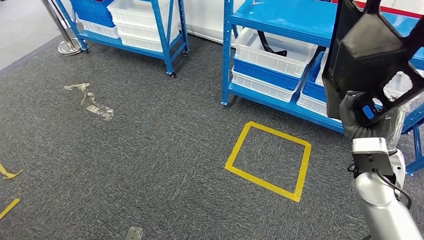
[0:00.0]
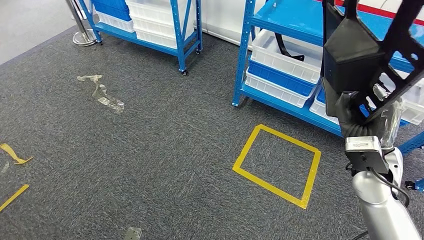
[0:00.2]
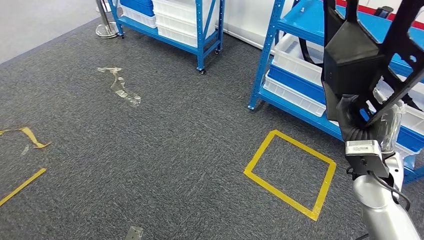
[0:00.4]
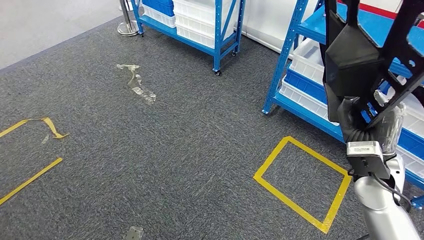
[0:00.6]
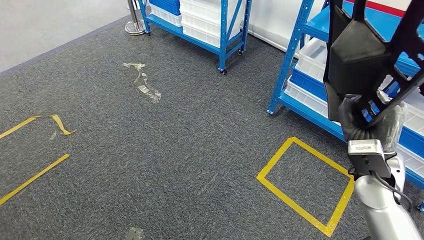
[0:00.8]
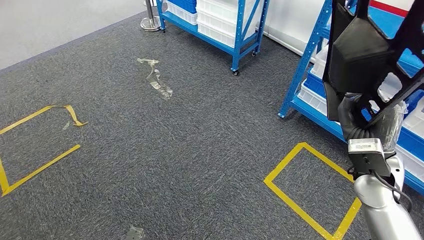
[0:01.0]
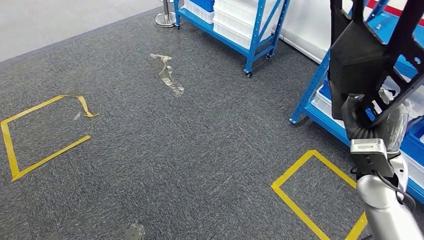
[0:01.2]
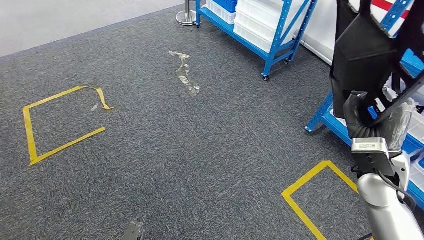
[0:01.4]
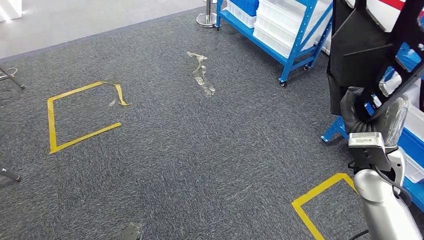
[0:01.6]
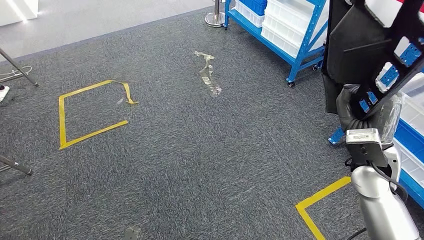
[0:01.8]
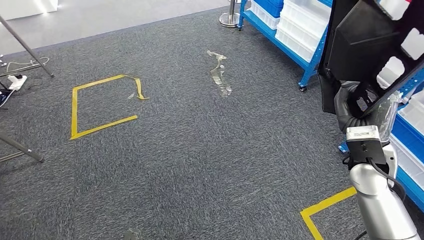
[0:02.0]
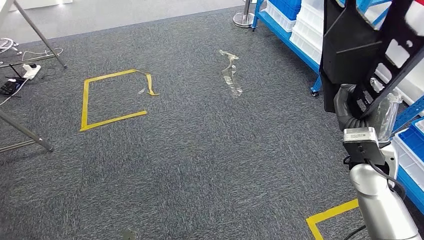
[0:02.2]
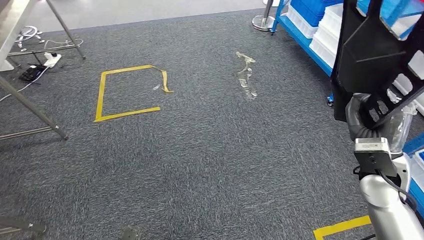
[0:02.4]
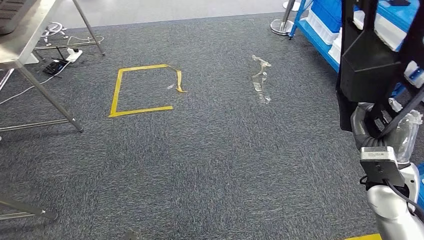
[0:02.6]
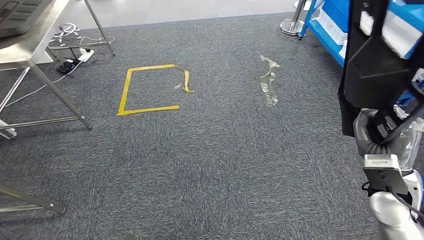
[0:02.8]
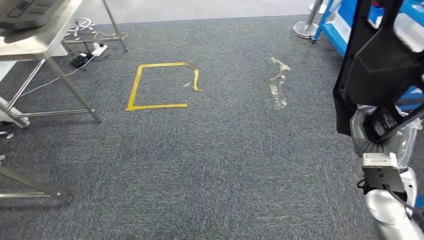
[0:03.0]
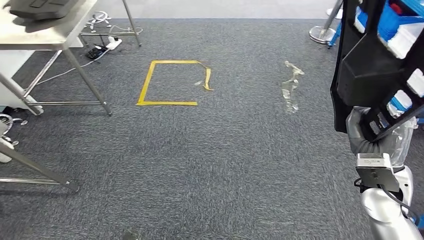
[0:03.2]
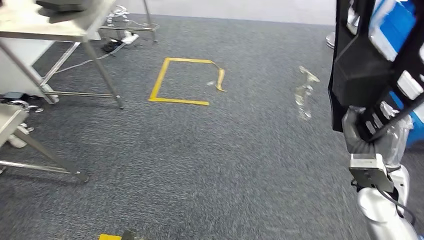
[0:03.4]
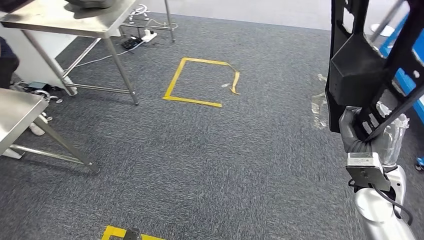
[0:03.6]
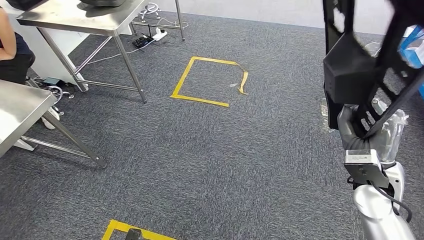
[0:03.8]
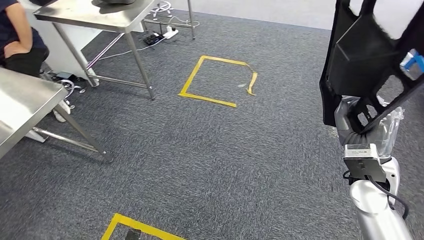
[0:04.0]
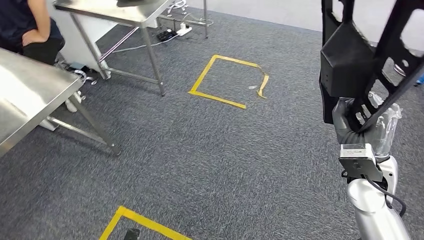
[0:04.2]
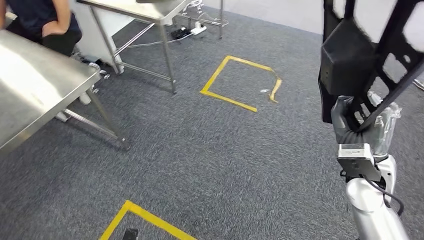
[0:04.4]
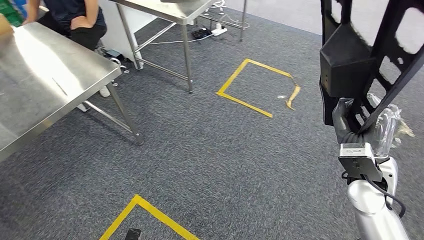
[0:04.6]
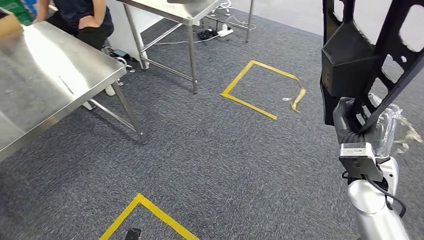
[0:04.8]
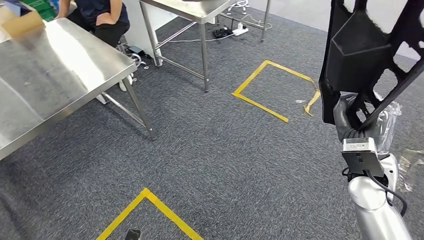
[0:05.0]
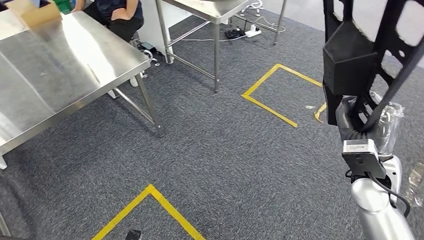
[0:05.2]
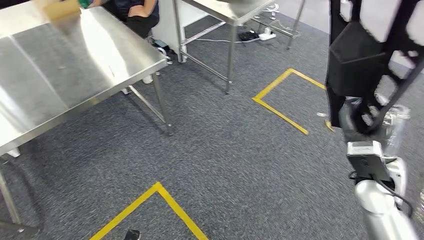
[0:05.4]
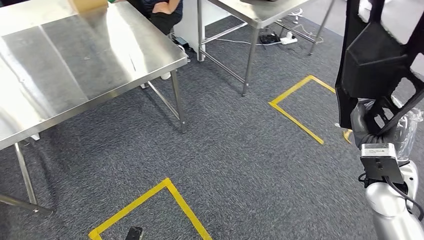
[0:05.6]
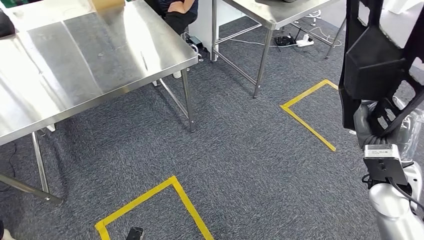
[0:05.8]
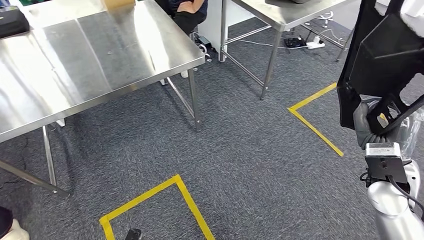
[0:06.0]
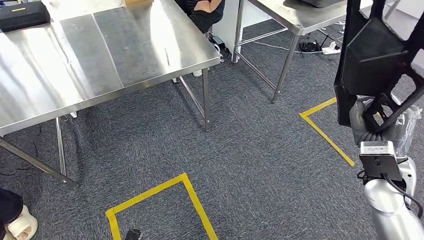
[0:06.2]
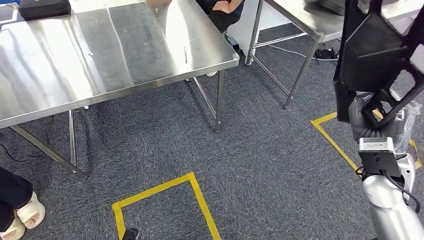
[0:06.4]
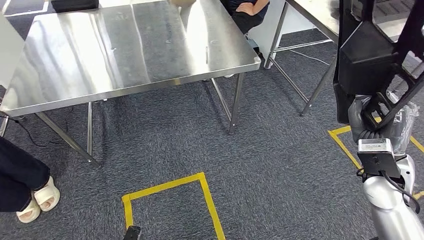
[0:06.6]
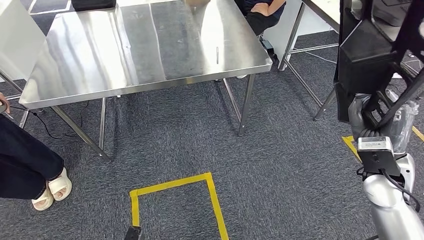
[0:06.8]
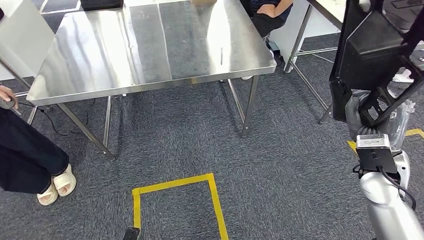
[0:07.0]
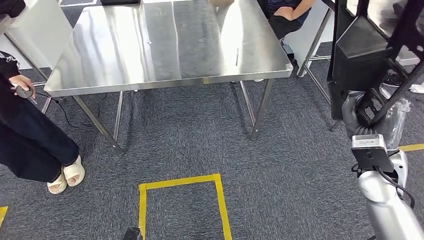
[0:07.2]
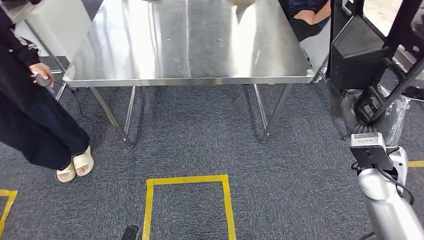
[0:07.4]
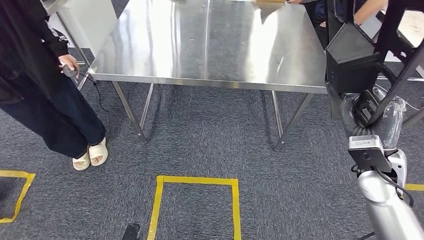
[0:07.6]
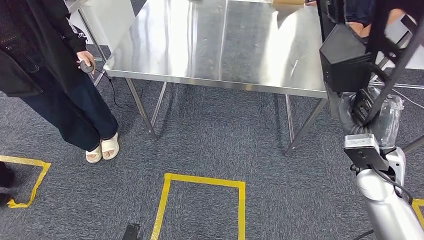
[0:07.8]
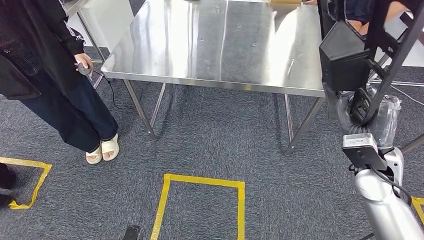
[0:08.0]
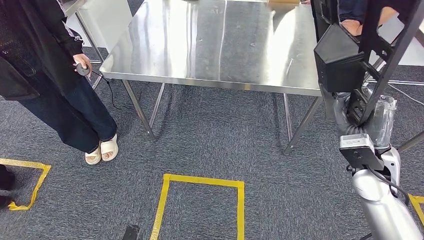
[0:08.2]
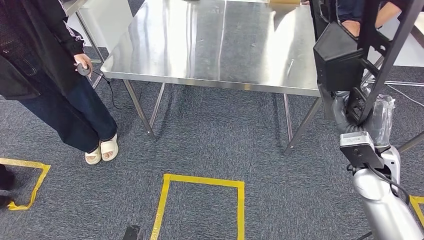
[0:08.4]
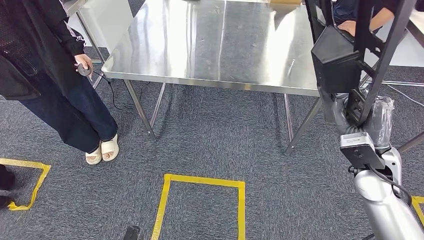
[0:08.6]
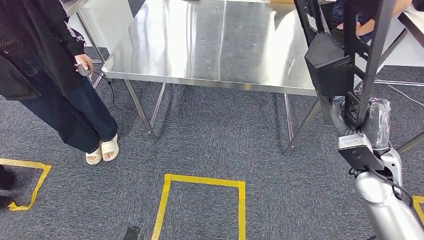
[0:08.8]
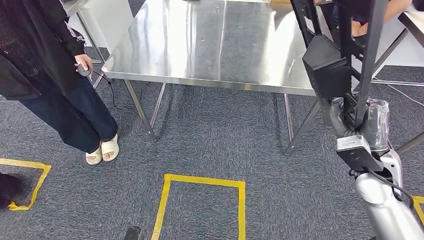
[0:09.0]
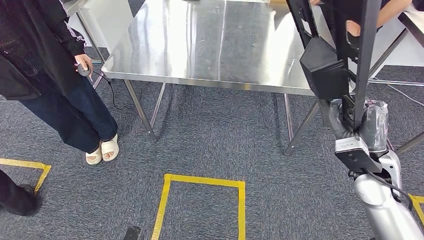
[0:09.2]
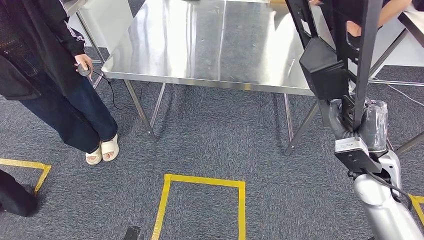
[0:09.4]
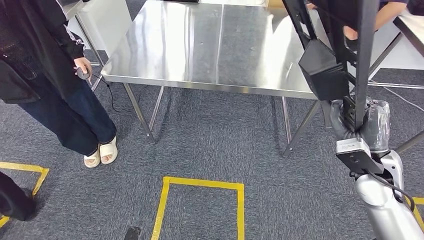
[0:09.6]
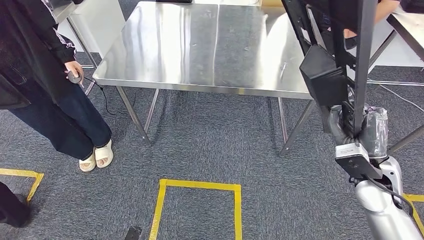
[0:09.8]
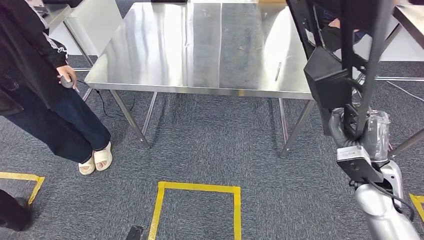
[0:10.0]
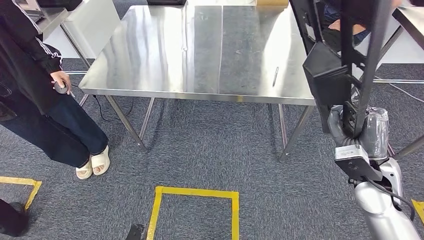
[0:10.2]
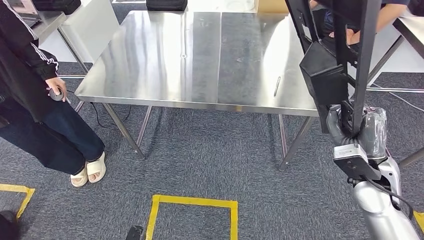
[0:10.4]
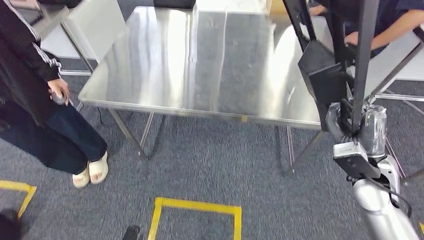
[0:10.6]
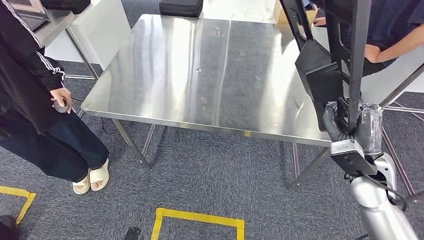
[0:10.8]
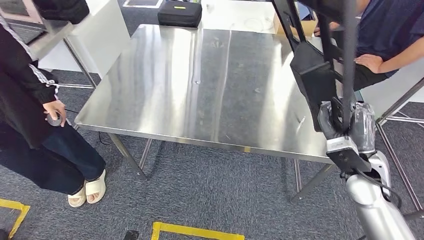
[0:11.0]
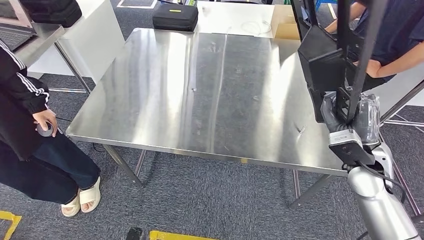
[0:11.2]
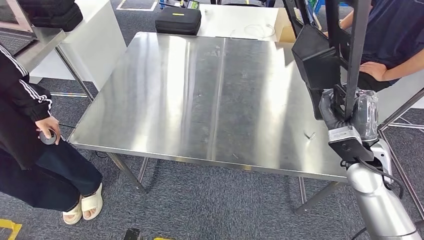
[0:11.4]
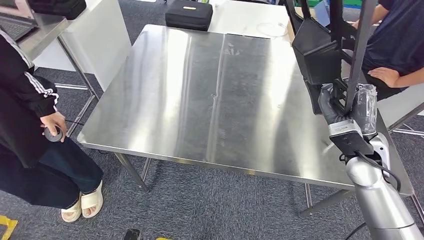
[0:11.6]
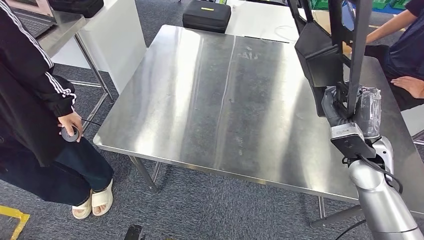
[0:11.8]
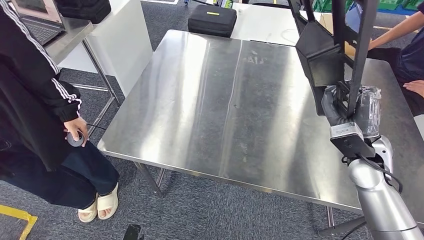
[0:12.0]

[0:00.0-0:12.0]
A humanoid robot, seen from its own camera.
Step, 0:00.0 to 0:10.4: Move the large material to the workbench.

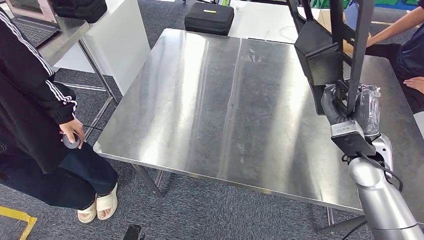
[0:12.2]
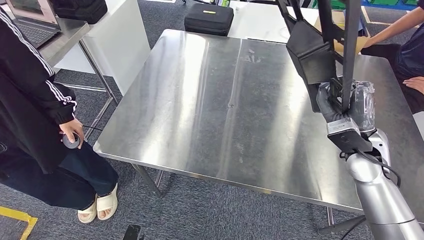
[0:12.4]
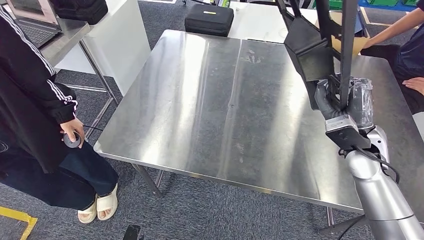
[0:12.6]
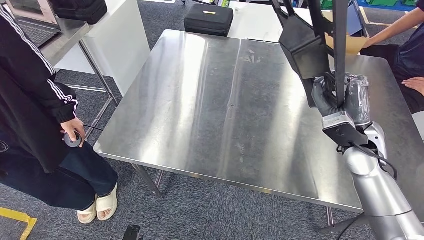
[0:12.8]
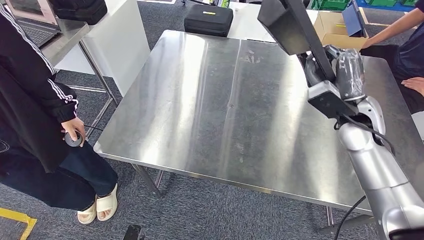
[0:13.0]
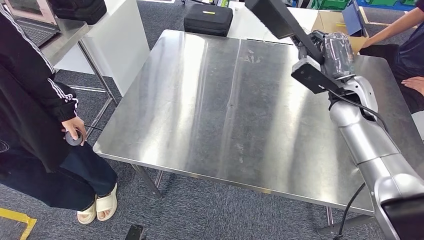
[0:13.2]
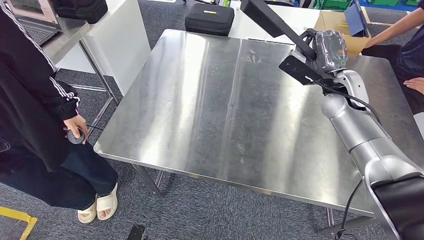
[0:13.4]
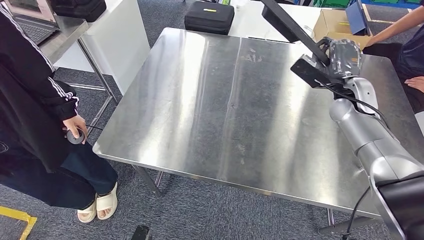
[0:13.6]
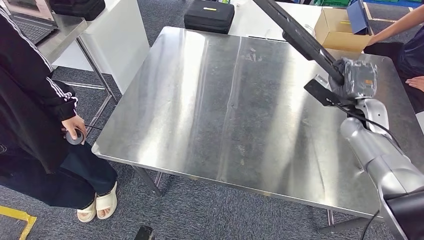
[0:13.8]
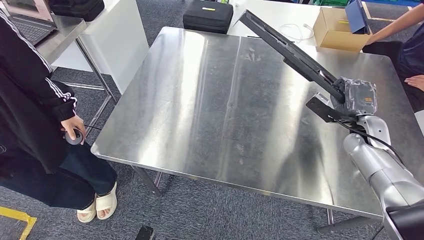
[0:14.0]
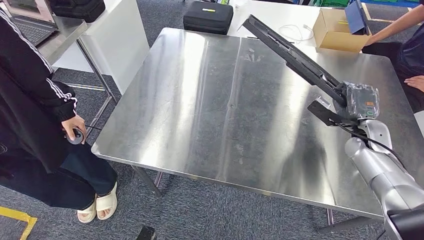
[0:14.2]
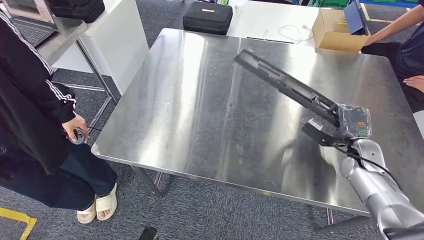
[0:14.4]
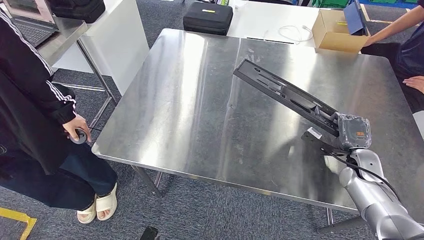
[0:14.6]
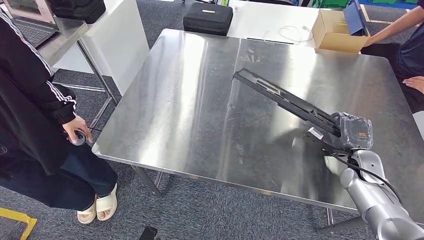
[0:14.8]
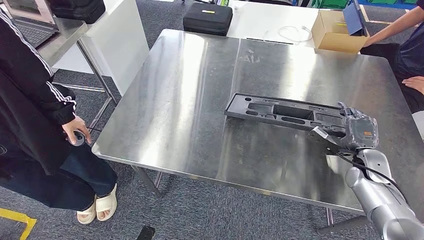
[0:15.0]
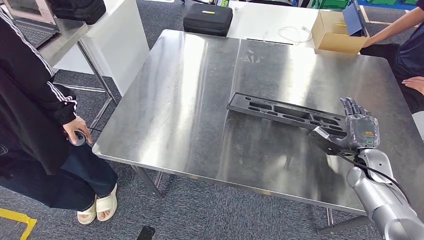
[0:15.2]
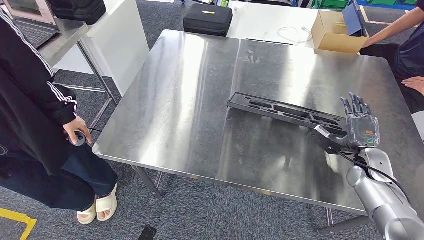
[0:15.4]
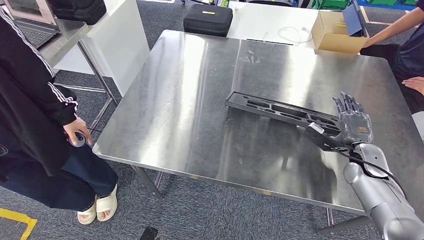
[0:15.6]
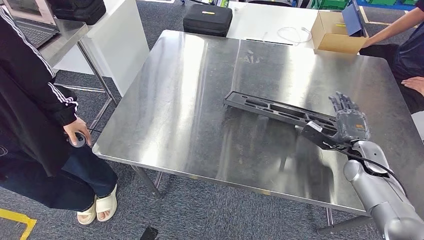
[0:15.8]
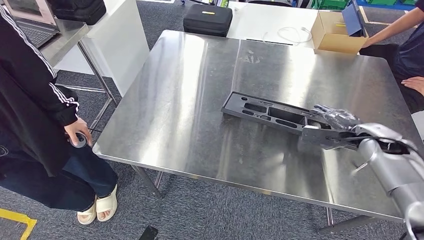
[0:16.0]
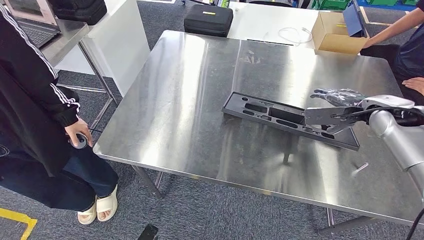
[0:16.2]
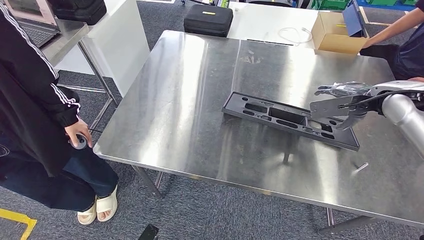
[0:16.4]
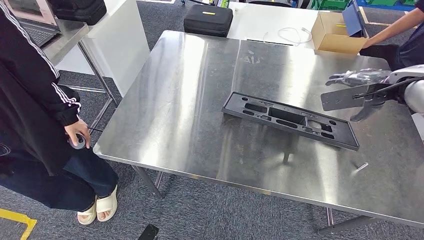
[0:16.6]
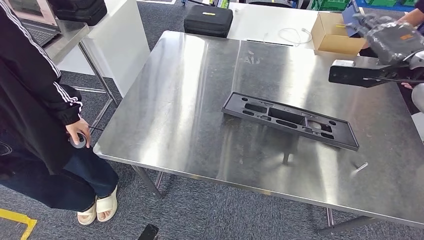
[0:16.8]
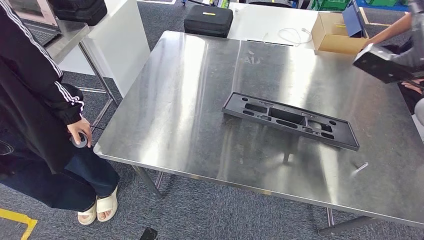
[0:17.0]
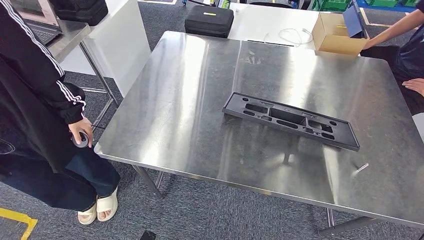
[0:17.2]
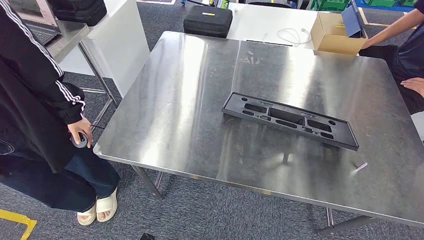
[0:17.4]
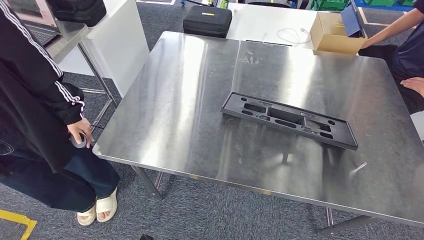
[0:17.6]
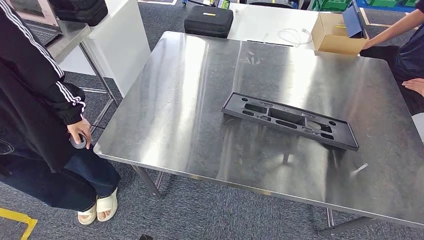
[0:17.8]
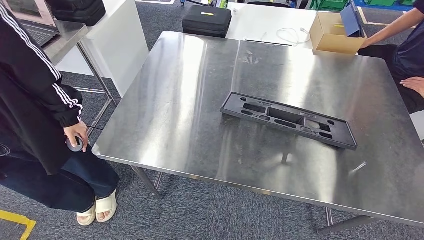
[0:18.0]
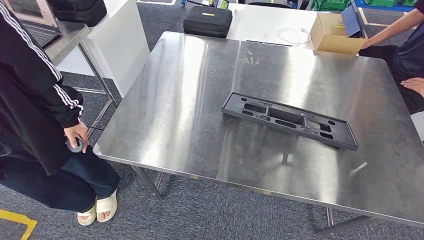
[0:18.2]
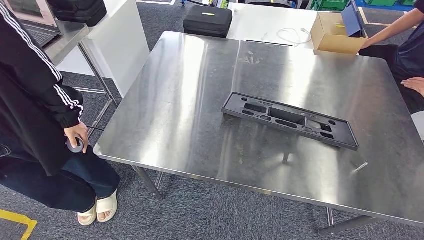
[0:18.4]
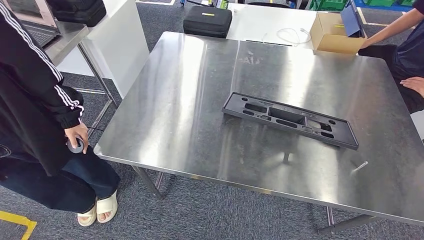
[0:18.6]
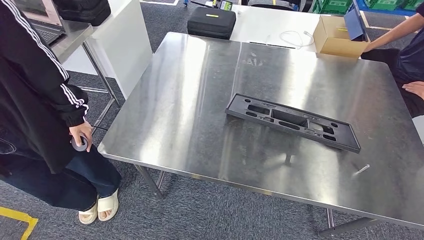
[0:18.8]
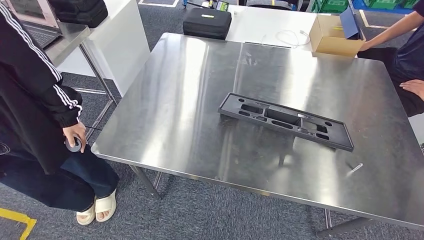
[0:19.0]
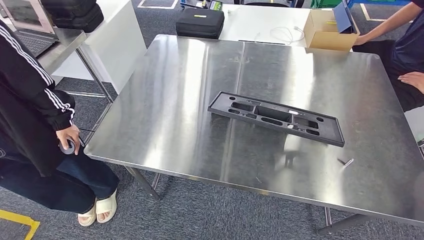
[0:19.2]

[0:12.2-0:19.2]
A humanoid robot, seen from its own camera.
0:12.2 to 0:13.6: The right hand shifts about 15 cm forward.
0:15.0 to 0:16.4: The right hand is displaced upward by approximately 20 cm.
0:16.4 to 0:17.8: The right hand is displaced to the right and backward by approximately 25 cm.
